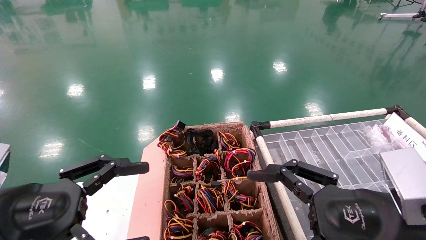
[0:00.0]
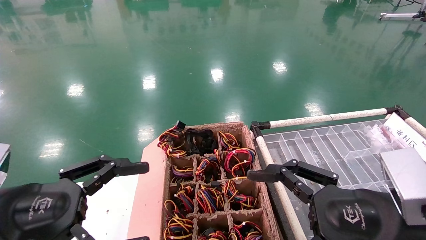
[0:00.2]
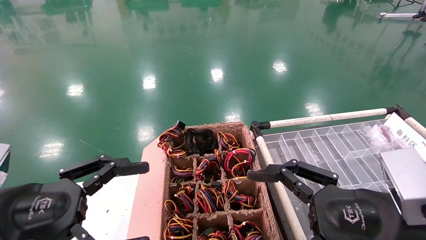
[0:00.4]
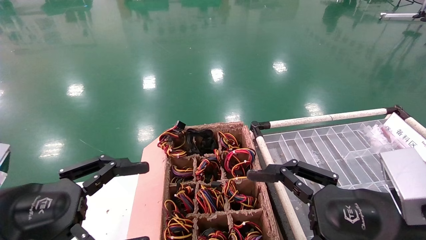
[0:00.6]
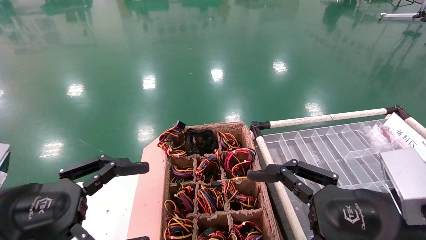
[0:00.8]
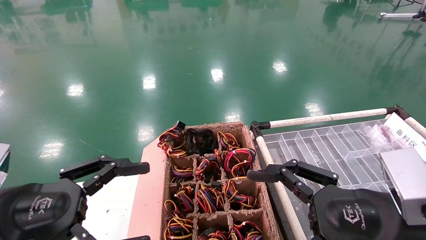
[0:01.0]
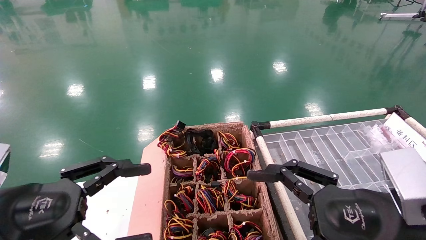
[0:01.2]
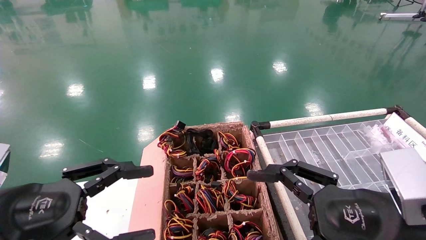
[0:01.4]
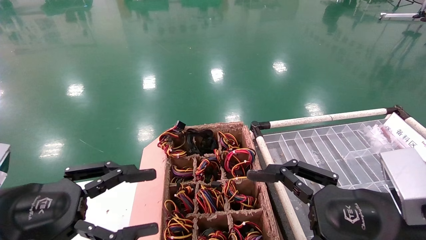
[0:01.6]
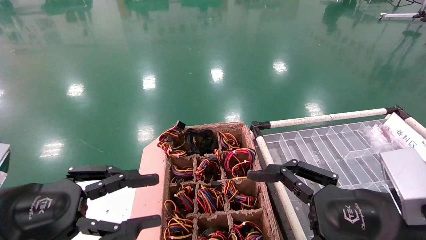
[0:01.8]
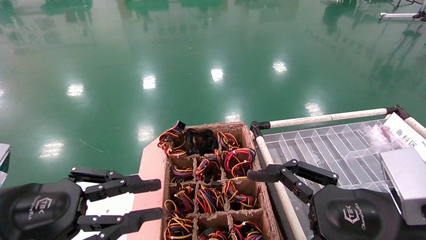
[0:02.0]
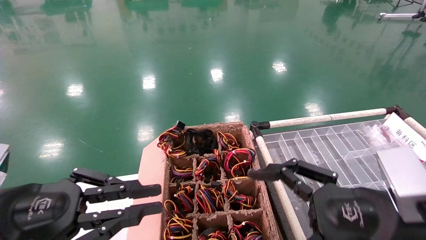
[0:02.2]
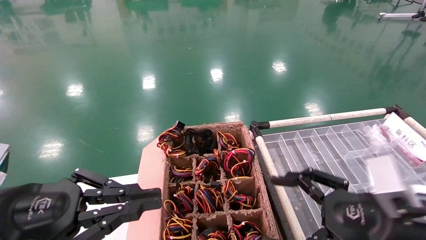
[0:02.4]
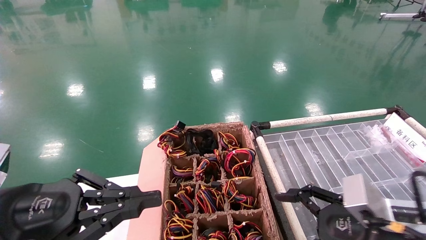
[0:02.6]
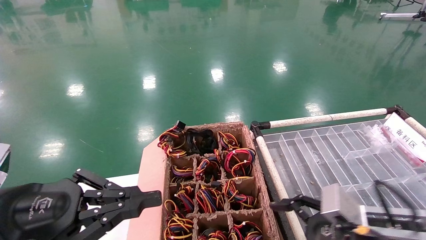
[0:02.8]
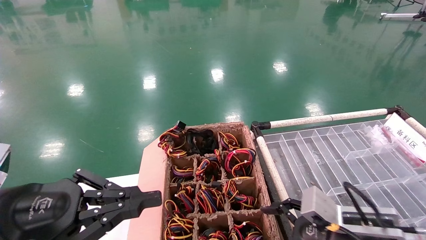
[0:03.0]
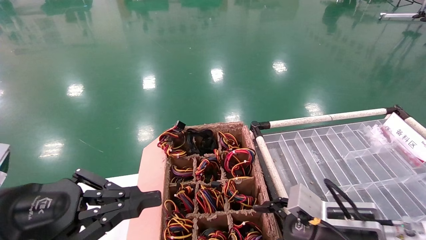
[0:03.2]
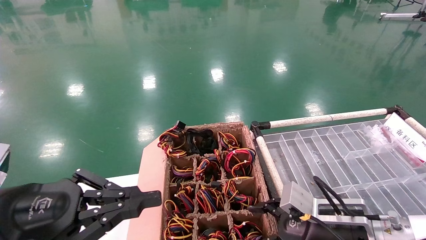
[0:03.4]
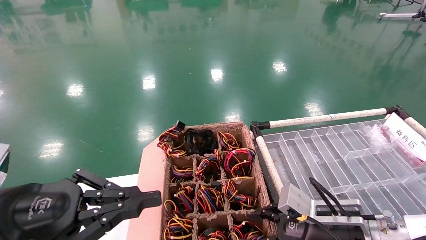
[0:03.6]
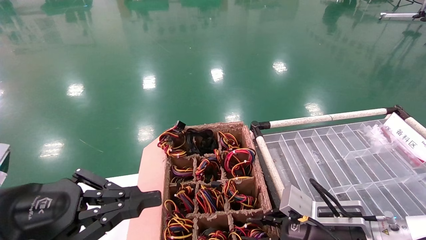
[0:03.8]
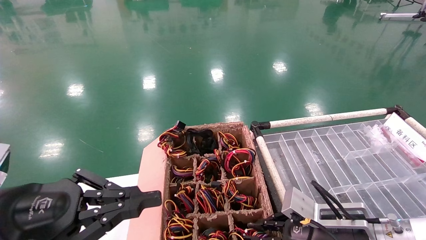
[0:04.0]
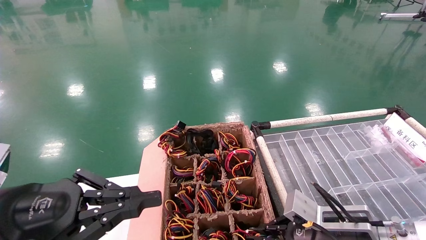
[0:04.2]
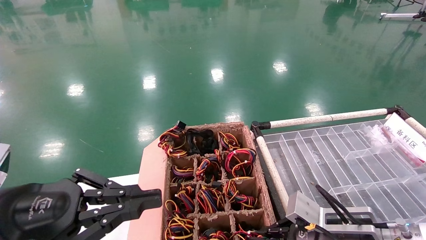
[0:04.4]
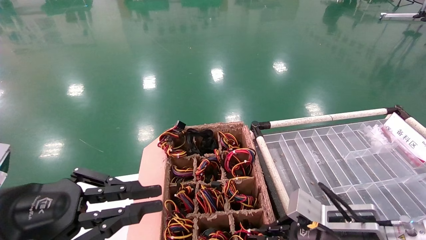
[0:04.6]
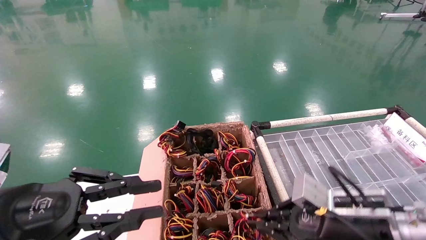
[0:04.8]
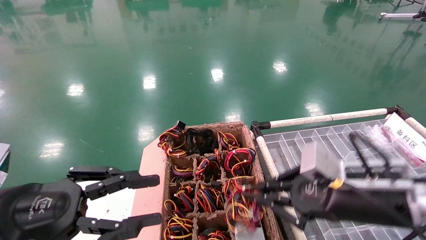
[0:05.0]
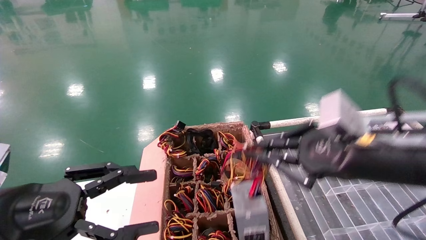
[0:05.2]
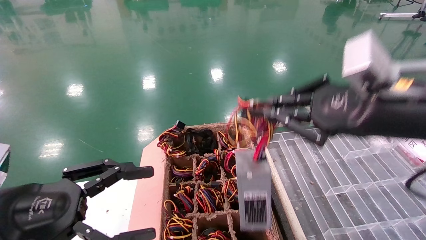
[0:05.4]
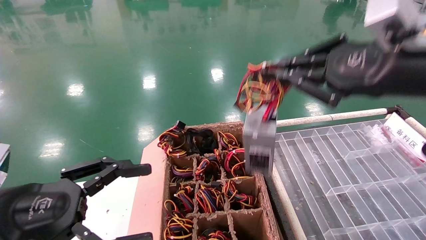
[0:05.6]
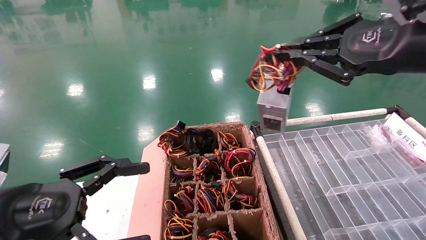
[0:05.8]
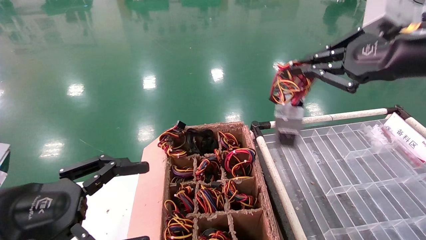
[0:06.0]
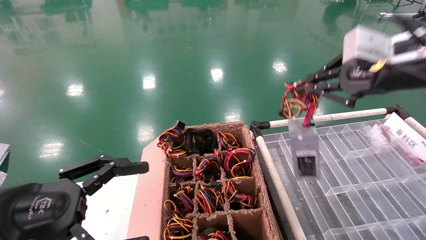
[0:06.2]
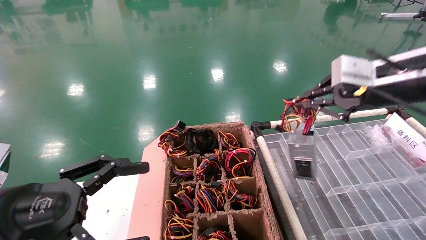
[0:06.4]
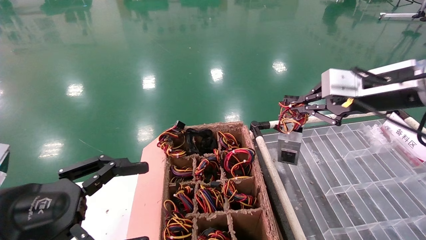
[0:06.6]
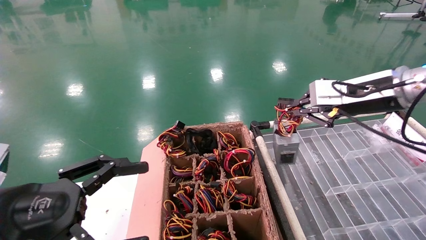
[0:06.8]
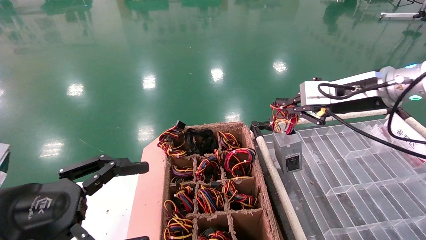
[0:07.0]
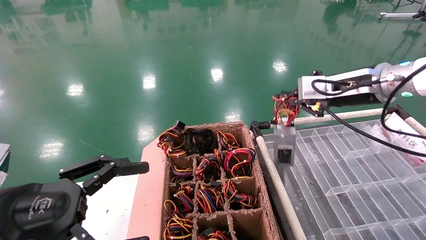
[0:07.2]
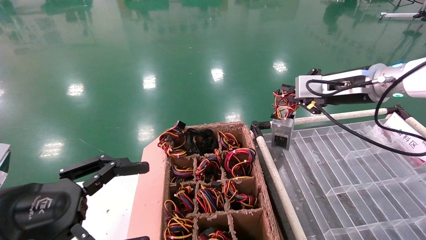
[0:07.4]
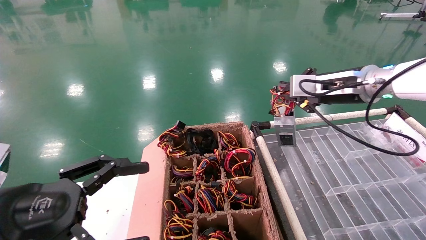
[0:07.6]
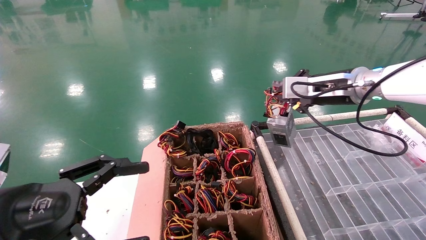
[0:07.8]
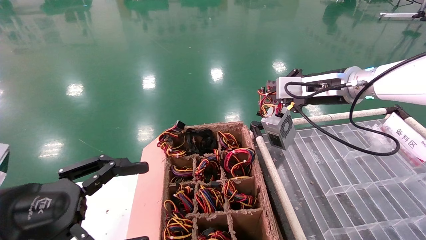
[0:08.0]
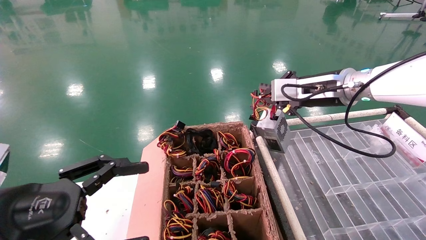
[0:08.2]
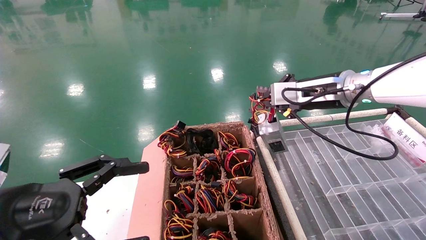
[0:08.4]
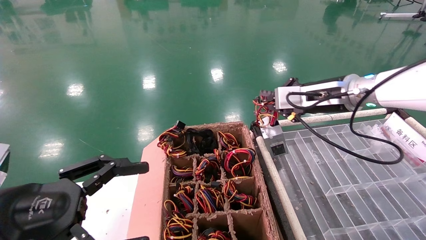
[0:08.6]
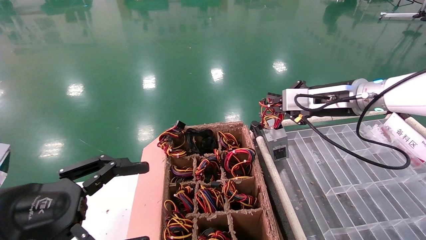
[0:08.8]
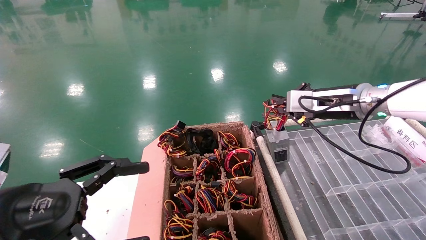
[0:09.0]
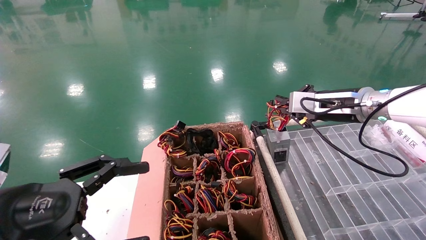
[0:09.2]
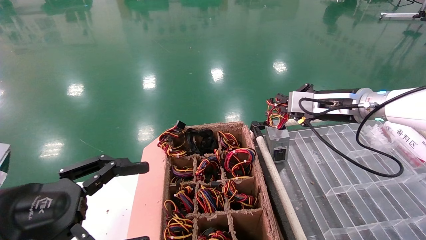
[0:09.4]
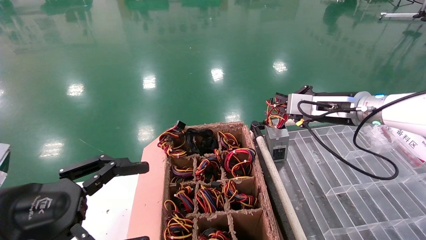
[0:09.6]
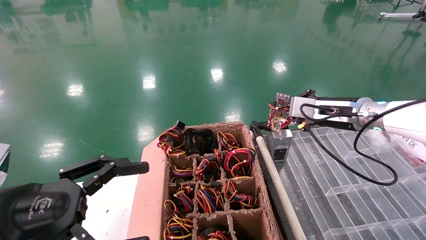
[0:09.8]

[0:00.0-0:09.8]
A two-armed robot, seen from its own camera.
Step, 2.8 to 4.8 s: Grab and lift the power supply from the large box.
Step, 5.0 to 9.4 s: Place the power supply on the operating table.
0.0 to 1.4 s: Neither gripper changes place.
1.4 to 2.8 s: The right gripper shifts roughly 10 cm downward and forward. Meanwhile the left gripper closes.
2.8 to 4.2 s: The right gripper changes place by approximately 5 cm, and closes its fingers.
4.2 to 5.6 s: The left gripper opens up, while the right gripper is displaced upward by about 25 cm.
5.6 to 7.0 s: The right gripper heads forward, covering approximately 15 cm.
7.0 to 8.4 s: The right gripper changes place by approximately 5 cm.
8.4 to 9.8 s: The right gripper goes about 5 cm downward.

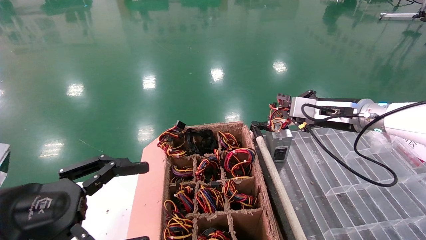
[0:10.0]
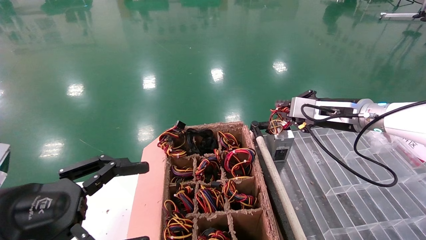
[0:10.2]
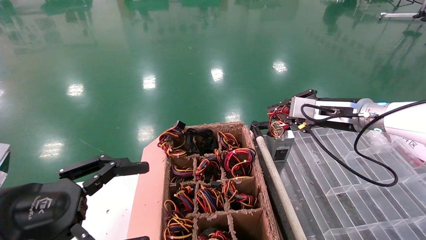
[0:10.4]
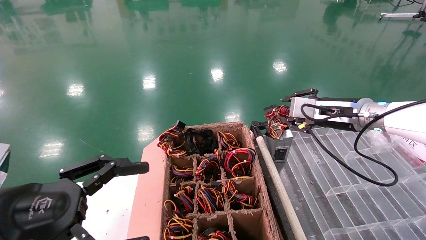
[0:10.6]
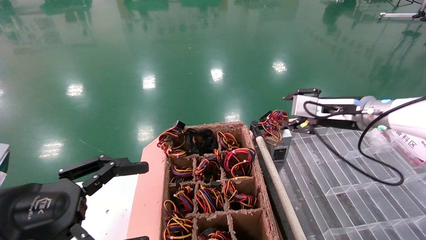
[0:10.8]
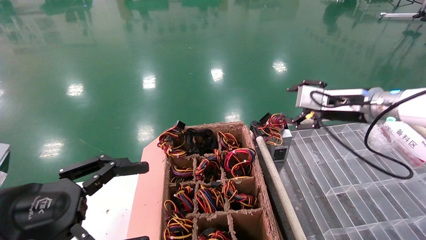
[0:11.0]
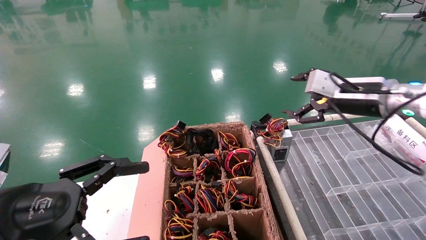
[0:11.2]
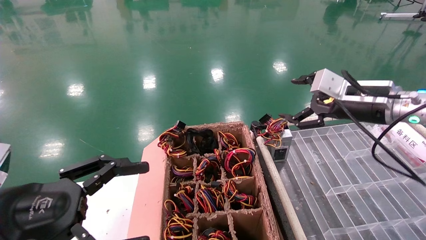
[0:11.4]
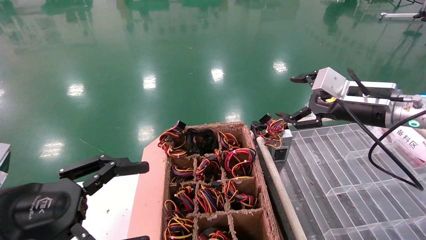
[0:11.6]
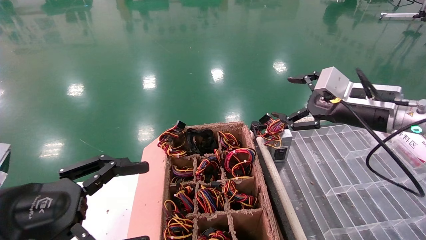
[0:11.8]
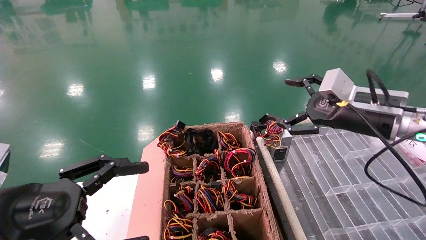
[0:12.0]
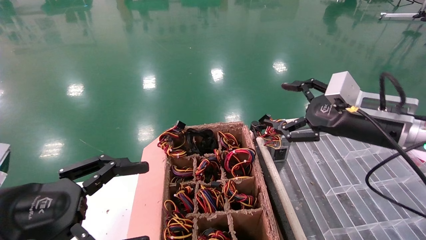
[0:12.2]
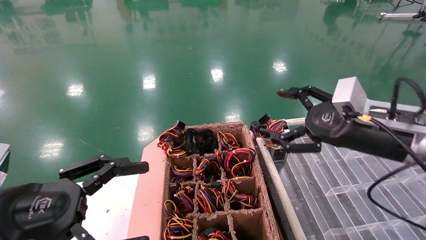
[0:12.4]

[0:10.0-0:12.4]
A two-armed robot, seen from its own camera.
10.0 to 11.2 s: The right gripper opens its fingers.
11.2 to 12.4 s: The right gripper is displaced backward by some 10 cm.

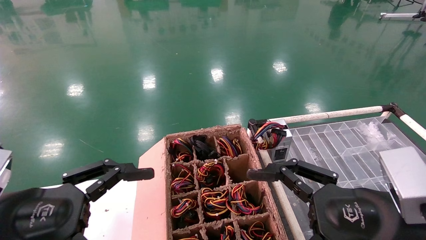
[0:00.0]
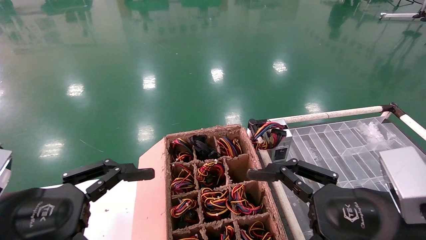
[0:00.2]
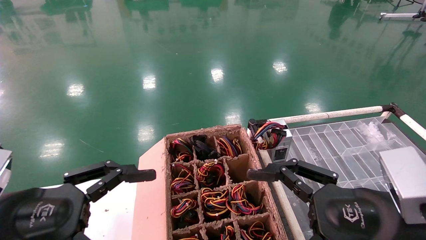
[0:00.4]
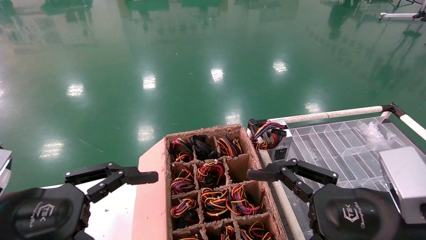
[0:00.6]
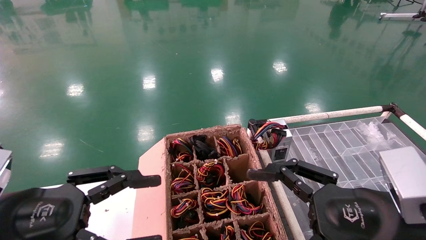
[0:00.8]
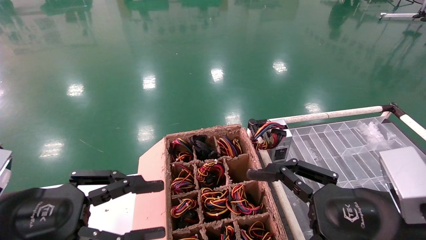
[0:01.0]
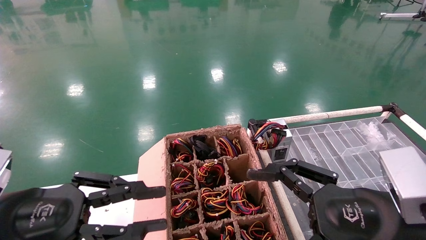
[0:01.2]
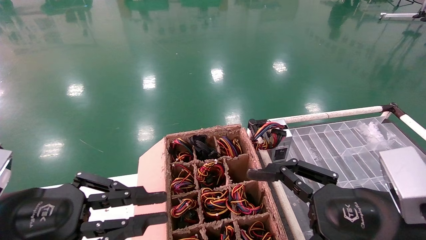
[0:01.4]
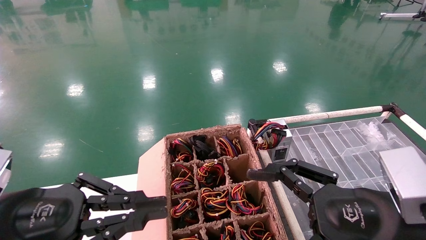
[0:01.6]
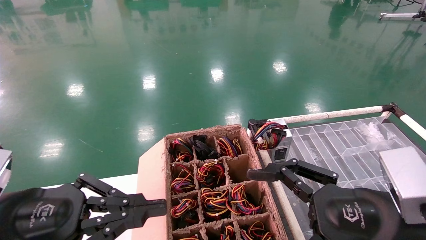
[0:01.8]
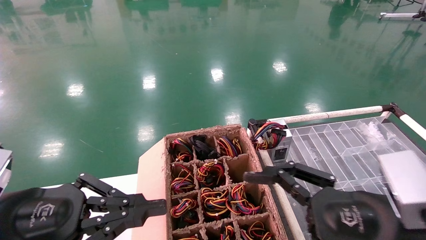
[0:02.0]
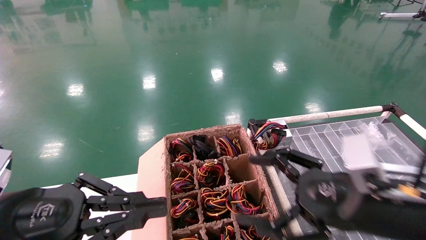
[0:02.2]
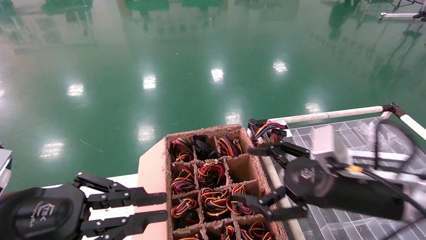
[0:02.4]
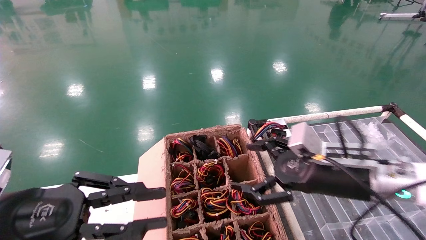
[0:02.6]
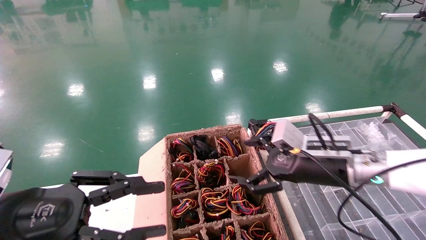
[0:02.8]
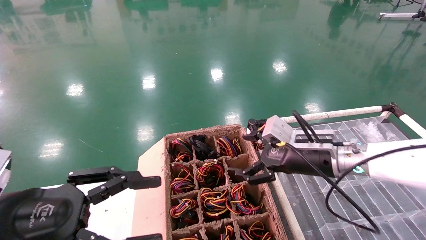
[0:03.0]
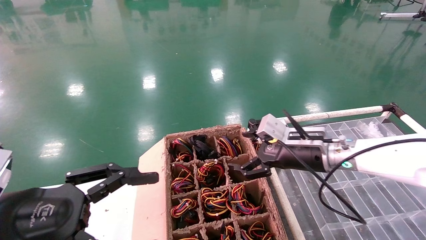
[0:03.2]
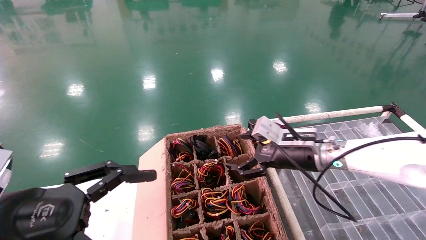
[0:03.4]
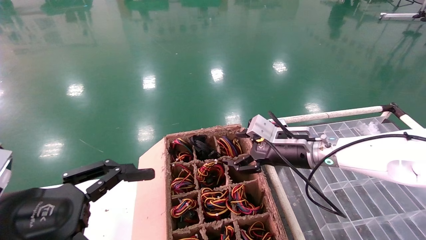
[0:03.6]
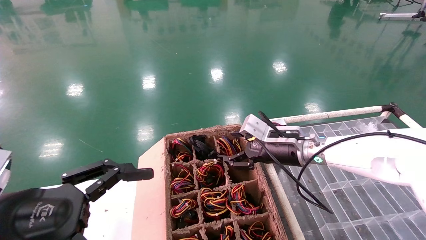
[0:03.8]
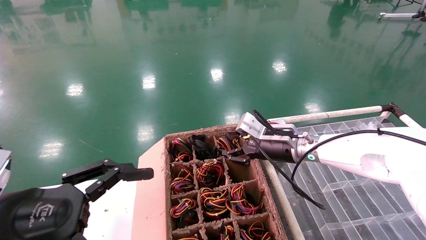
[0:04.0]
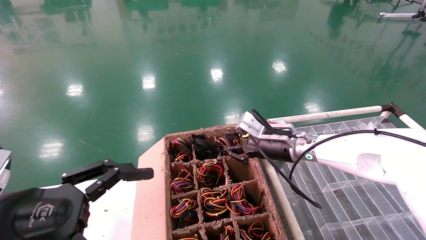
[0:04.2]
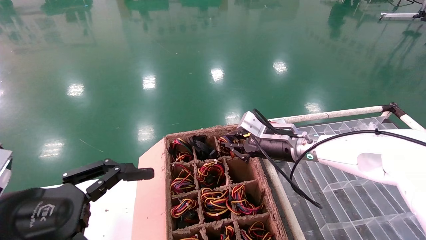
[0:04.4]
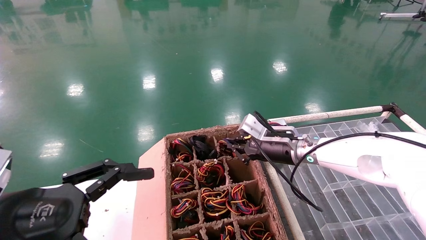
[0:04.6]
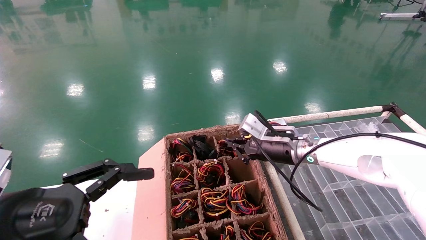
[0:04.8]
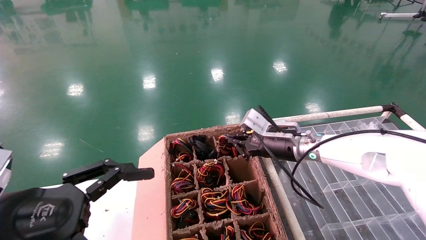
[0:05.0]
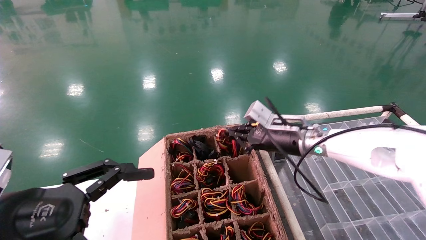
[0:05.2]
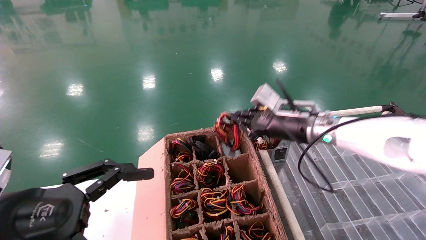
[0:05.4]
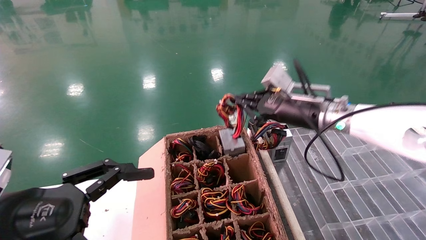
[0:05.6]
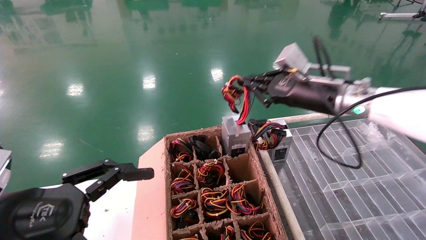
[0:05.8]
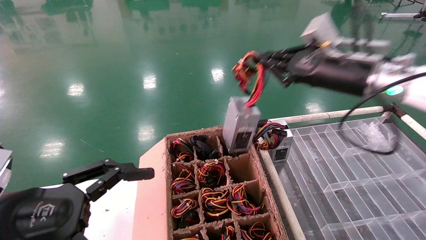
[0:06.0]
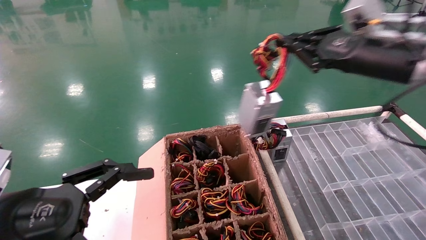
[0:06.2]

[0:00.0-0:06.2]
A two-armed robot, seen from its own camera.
Step, 1.8 to 4.8 s: Grab and lift the power supply from the large box.
0.0 to 1.6 s: The left gripper closes its fingers.
1.6 to 3.2 s: The left gripper opens up. The right gripper travels forward by about 20 cm.
3.2 to 4.6 s: The right gripper is displaced forward by about 5 cm, and closes up.
4.6 to 6.2 s: The right gripper is displaced upward, to the right and backward by about 25 cm.
